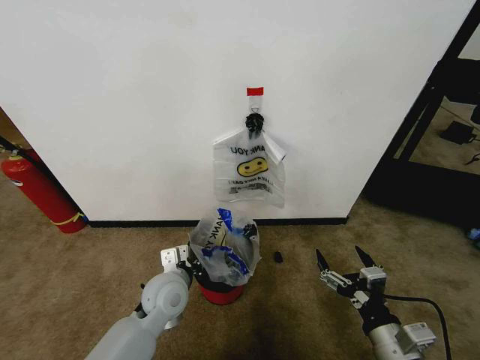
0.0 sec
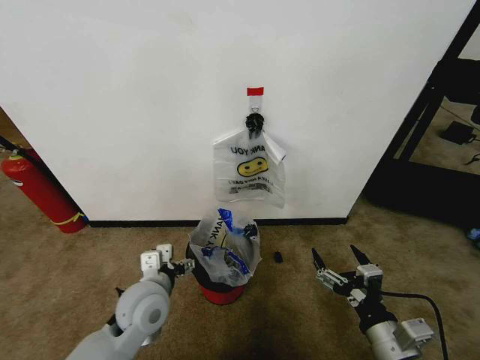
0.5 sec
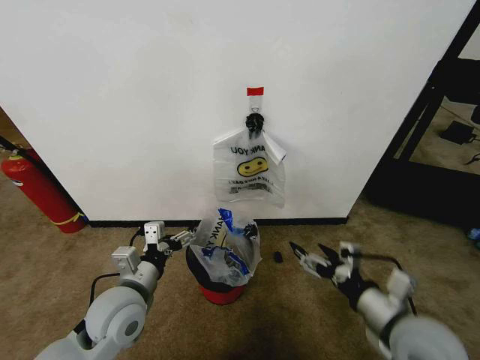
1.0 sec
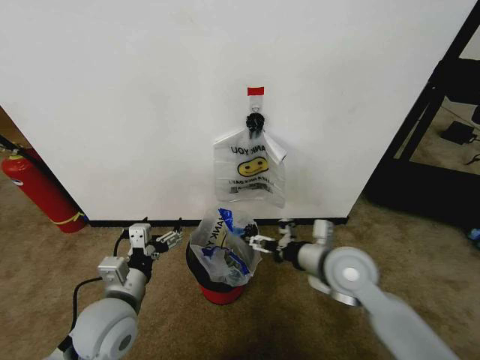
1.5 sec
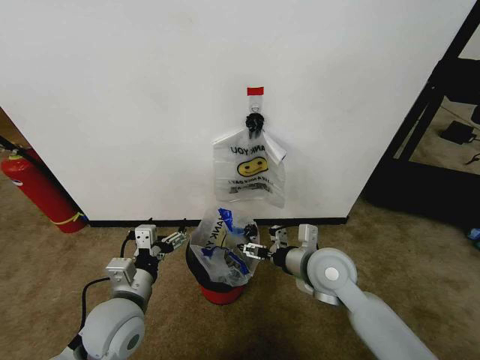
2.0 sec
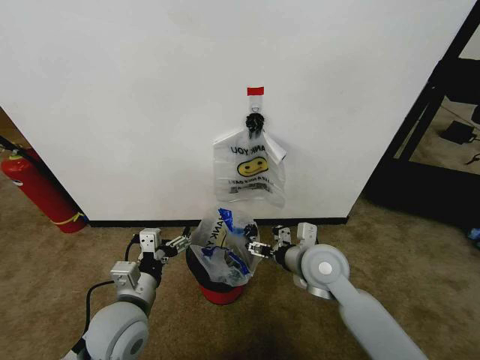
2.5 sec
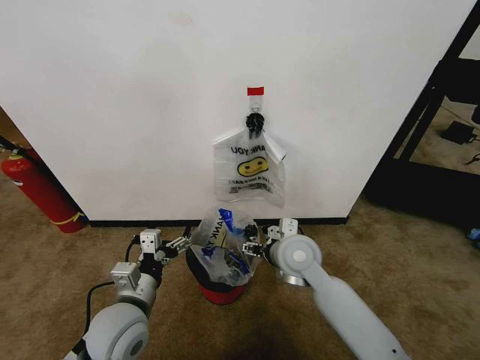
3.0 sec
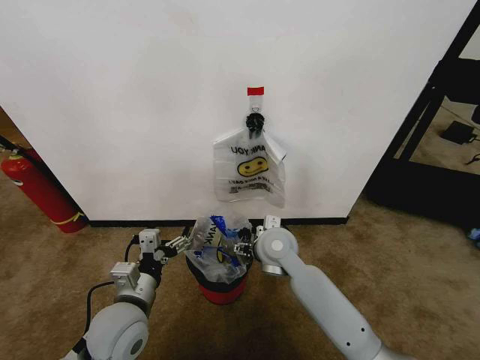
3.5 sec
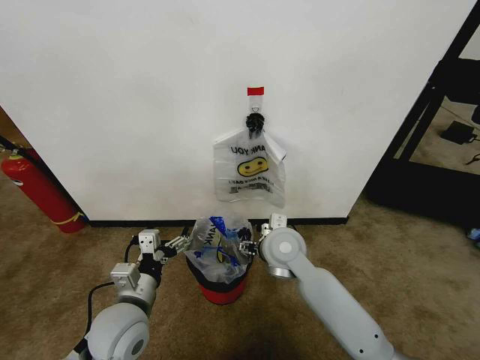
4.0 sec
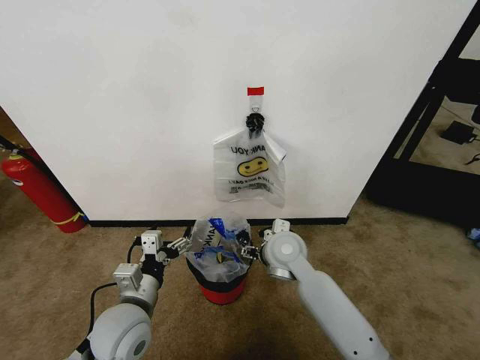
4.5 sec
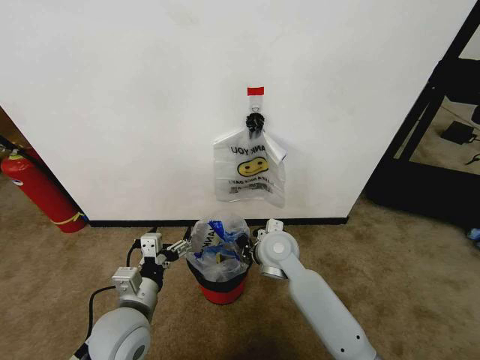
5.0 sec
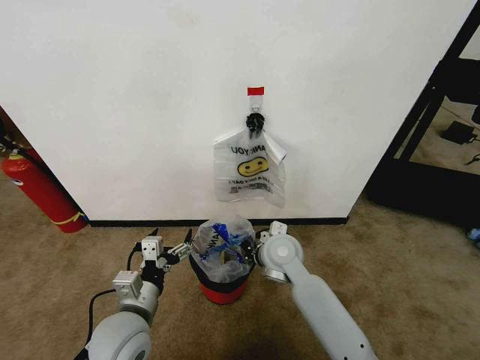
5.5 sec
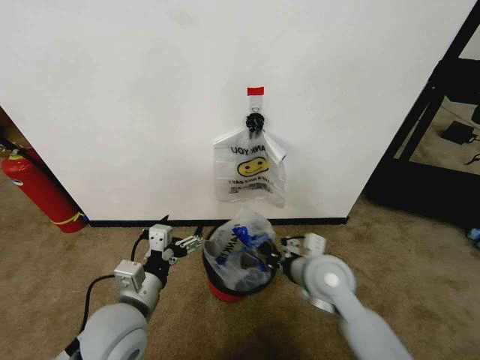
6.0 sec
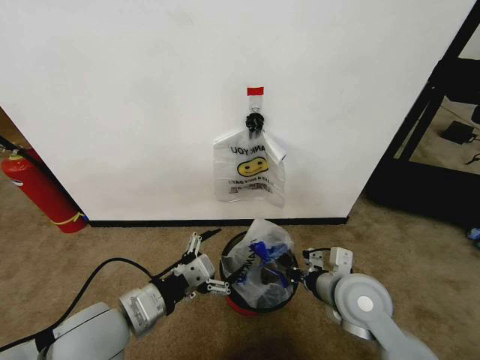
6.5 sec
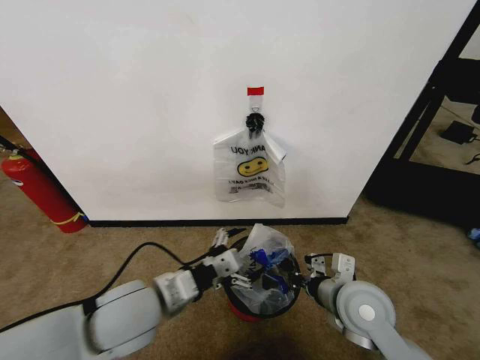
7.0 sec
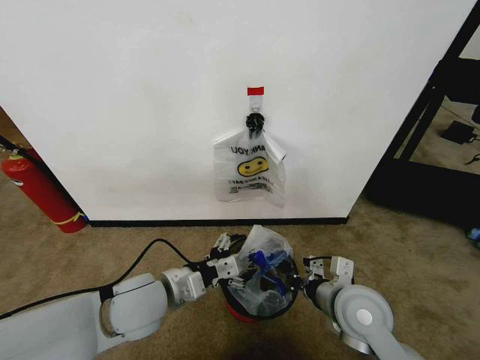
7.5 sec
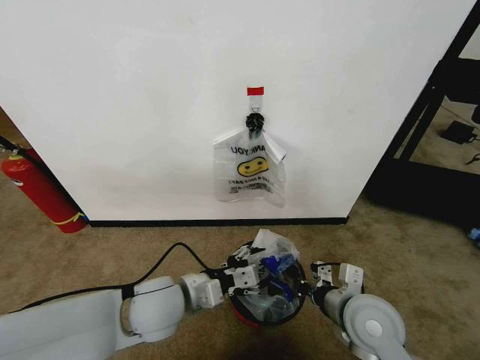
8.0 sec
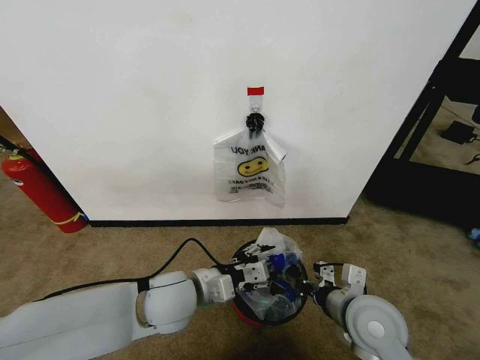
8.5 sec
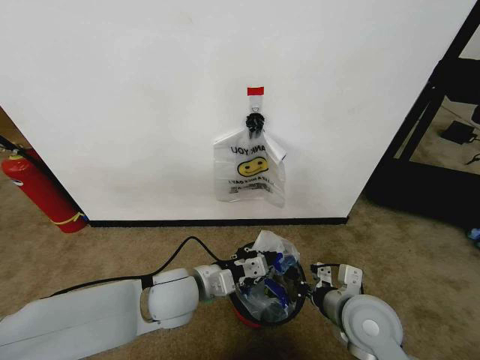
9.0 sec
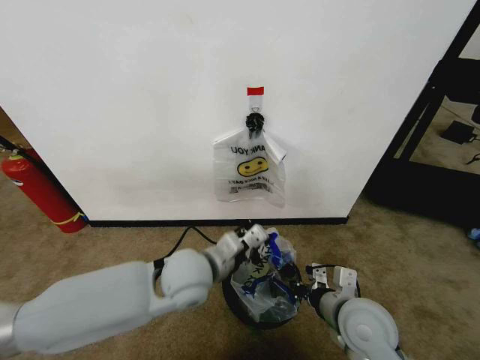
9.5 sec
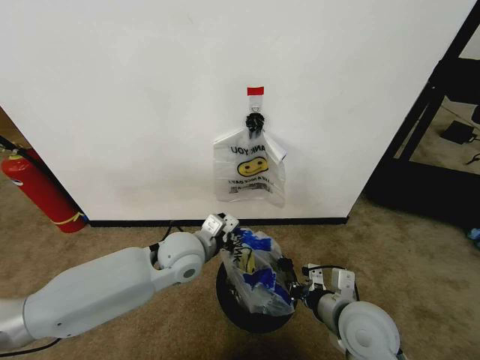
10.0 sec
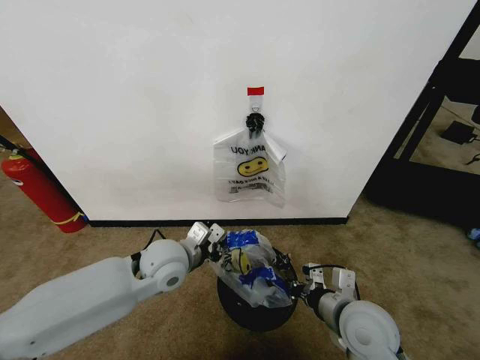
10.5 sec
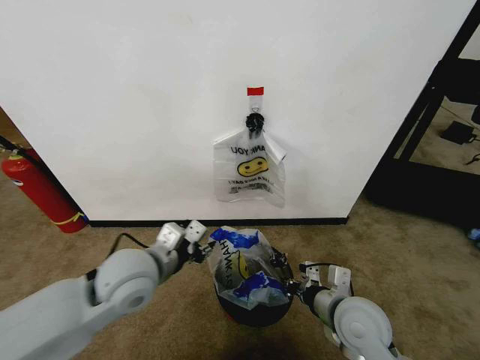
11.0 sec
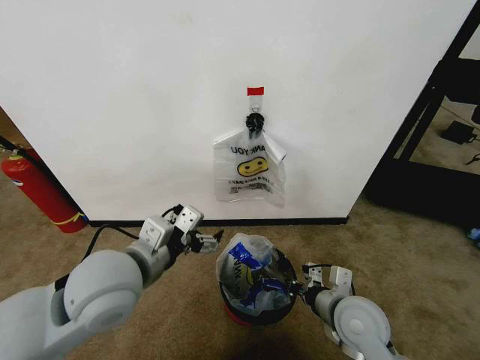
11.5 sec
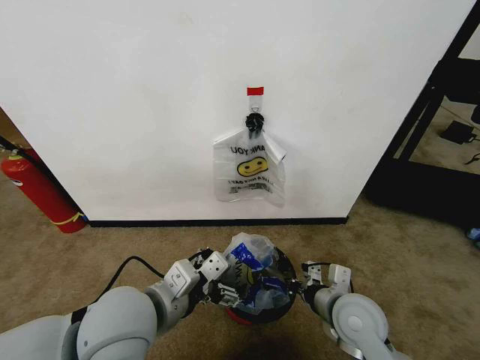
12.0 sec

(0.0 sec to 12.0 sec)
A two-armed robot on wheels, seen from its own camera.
Task of the whole recording: Pick up the garbage bag from the wall and place it over the trash bin.
0.0 sec - 2.0 sec: The left gripper shifts some 10 cm backward and to the left, and opens up; the right gripper goes some 20 cm forward and to the left.
2.0 sec - 4.0 sec: The right gripper goes some 10 cm to the left.
4.0 sec - 6.0 sec: The right gripper shifts about 10 cm to the right and backward, and closes its fingers.
6.0 sec - 8.0 sec: The left gripper shifts roughly 5 cm to the right. The right gripper moves backward, about 5 cm.
8.0 sec - 10.0 sec: The left gripper shifts approximately 10 cm forward, and closes.
10.0 sec - 12.0 sec: The left gripper goes roughly 15 cm backward and upward, and opens up.

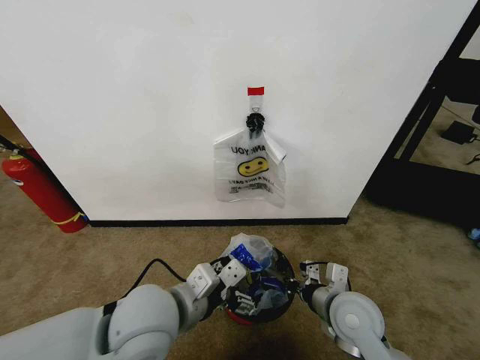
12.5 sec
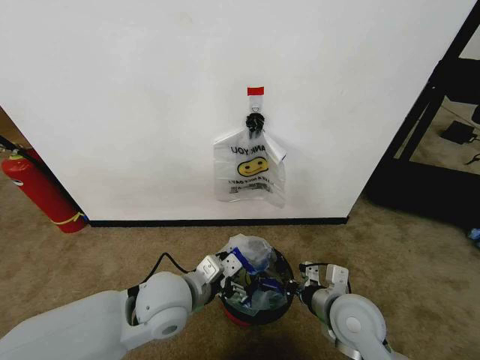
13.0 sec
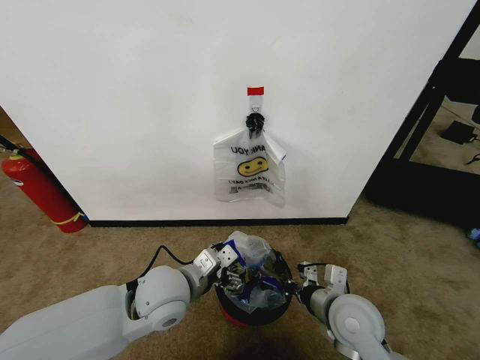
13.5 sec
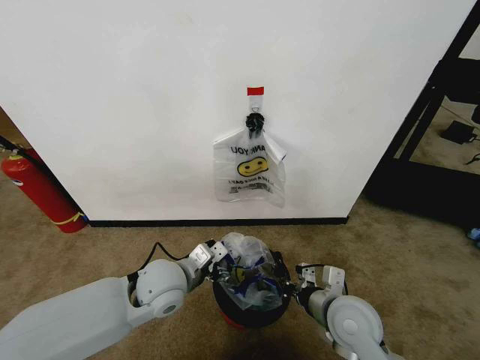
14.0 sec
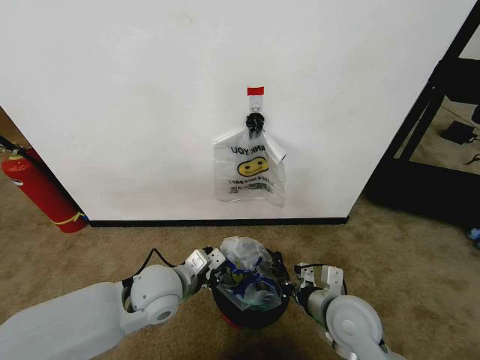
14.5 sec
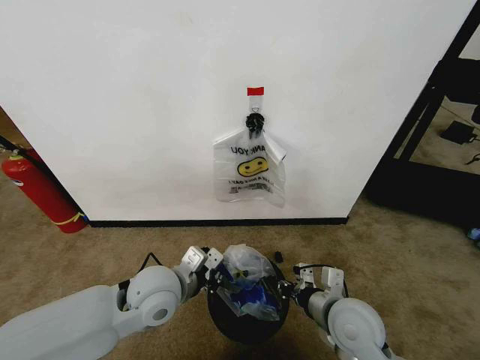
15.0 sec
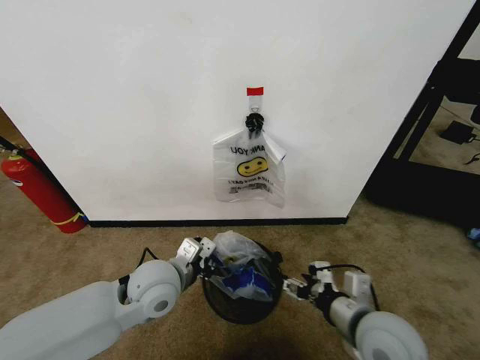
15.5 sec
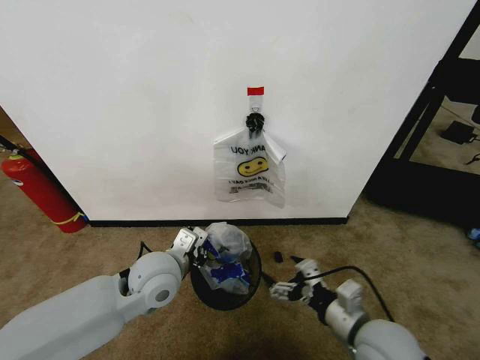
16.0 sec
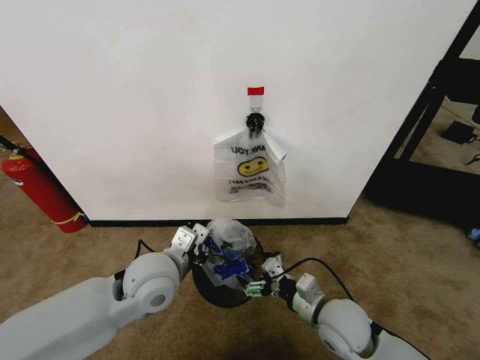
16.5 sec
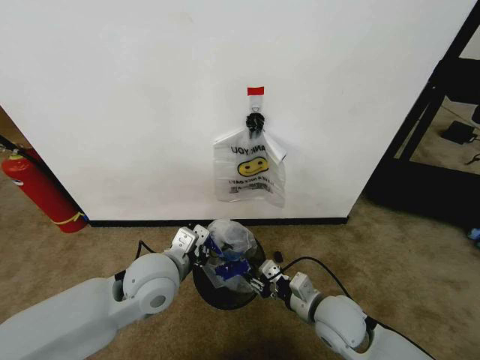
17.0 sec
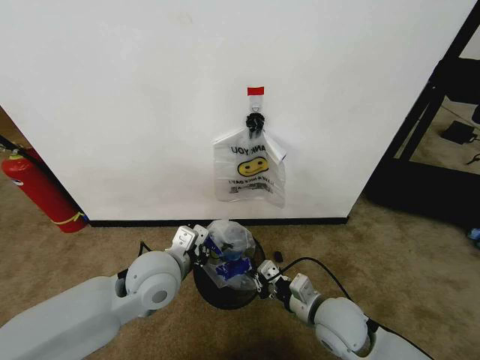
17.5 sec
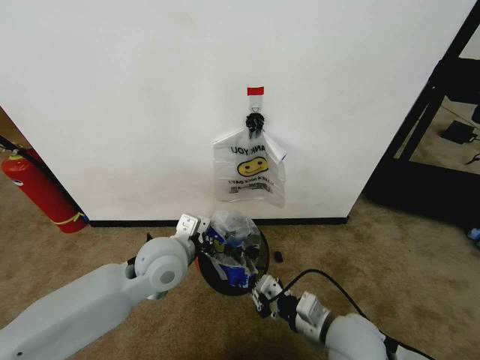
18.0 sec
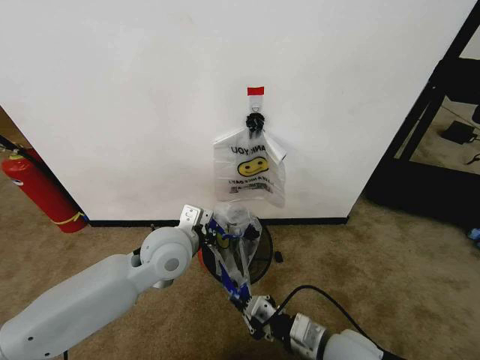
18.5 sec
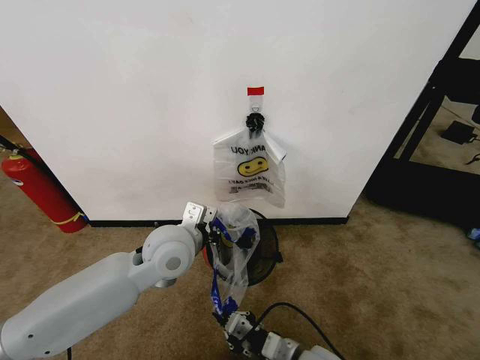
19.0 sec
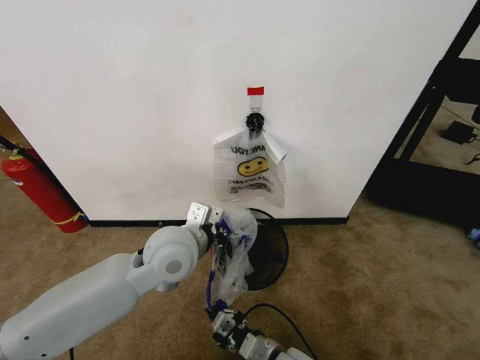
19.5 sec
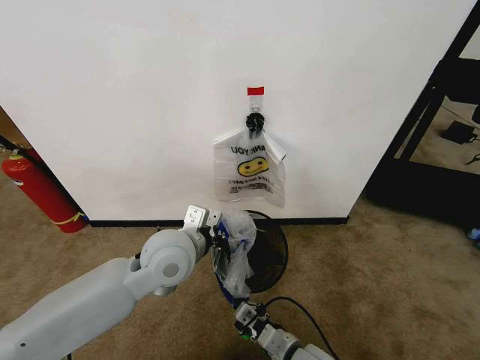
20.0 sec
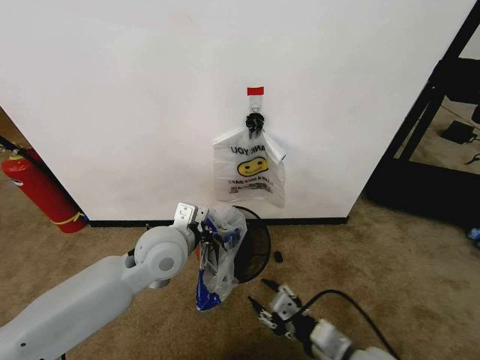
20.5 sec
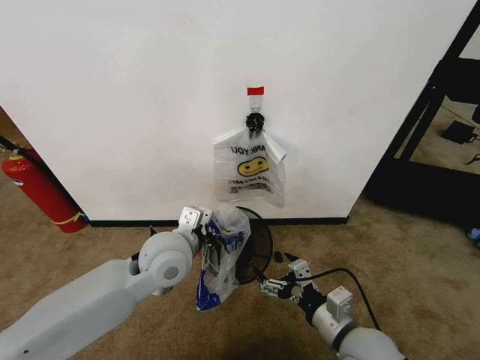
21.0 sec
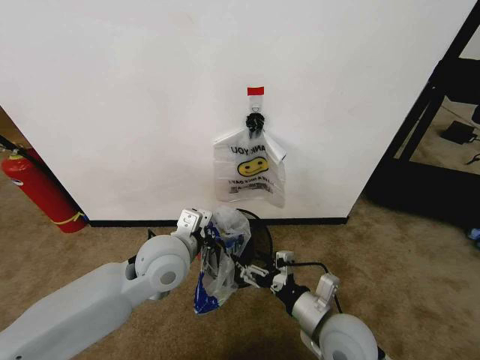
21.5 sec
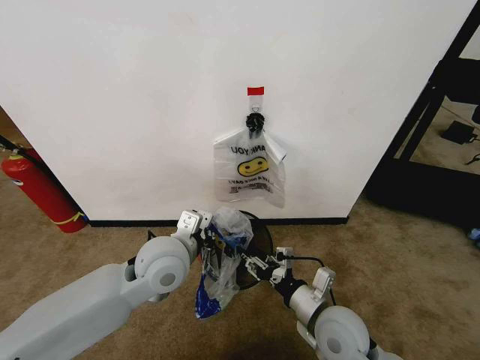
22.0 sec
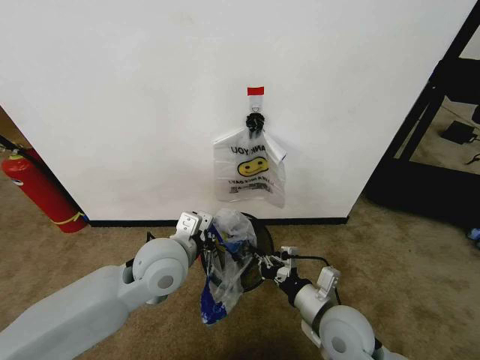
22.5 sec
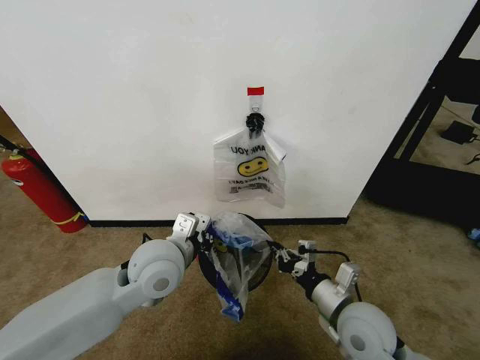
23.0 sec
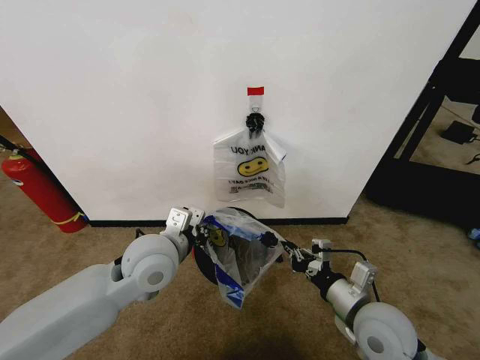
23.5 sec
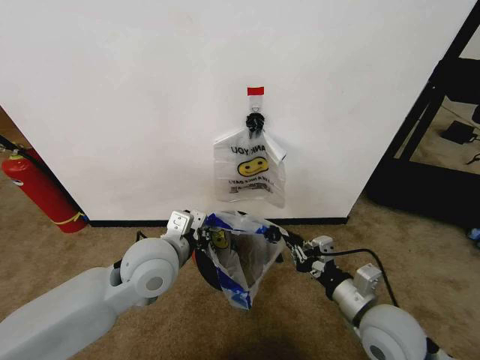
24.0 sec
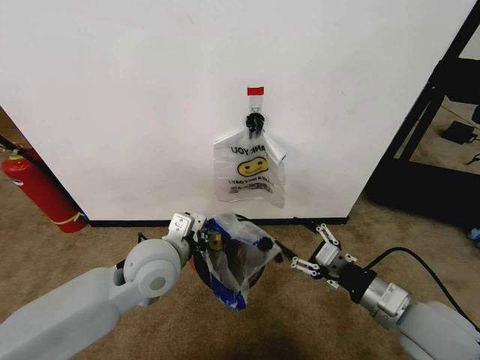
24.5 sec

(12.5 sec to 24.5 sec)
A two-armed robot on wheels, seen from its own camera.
Task of the whole recording: Pick up the garbage bag from the wall and place it over the trash bin.
12.5 sec - 14.5 sec: The left gripper heads downward and forward, covering some 10 cm, and closes its fingers.
14.5 sec - 16.5 sec: The right gripper opens up.
16.5 sec - 18.5 sec: The right gripper travels backward by approximately 5 cm, and closes; the left gripper changes place by roughly 5 cm.
18.5 sec - 20.5 sec: The right gripper moves approximately 10 cm to the left and comes back, and opens up.
20.5 sec - 22.5 sec: The right gripper travels forward by roughly 10 cm, and closes.
22.5 sec - 24.5 sec: The right gripper is displaced to the right and upward by some 15 cm, and opens.

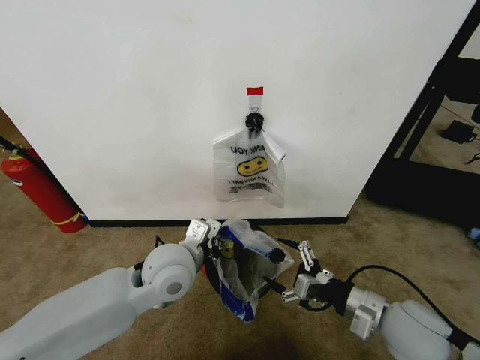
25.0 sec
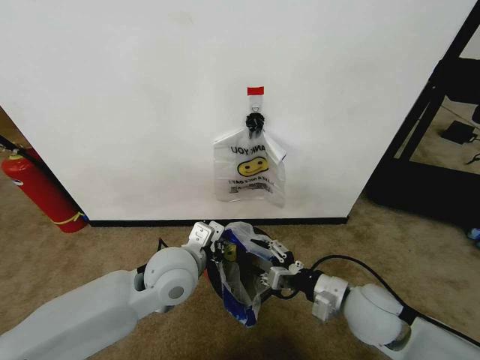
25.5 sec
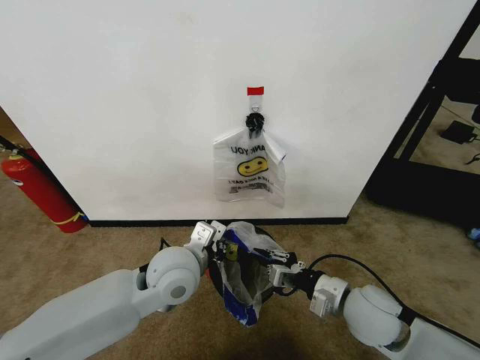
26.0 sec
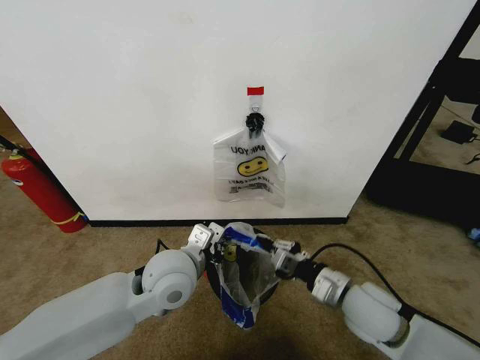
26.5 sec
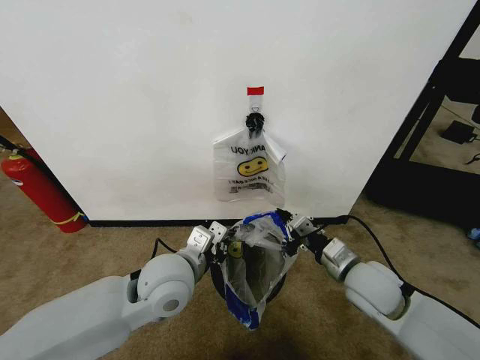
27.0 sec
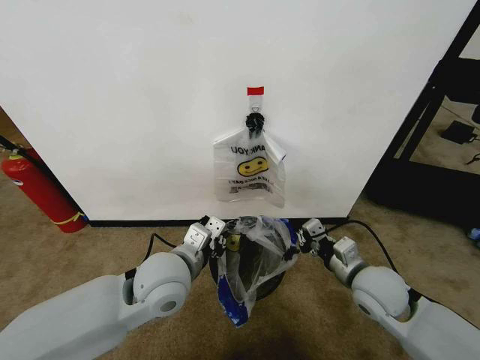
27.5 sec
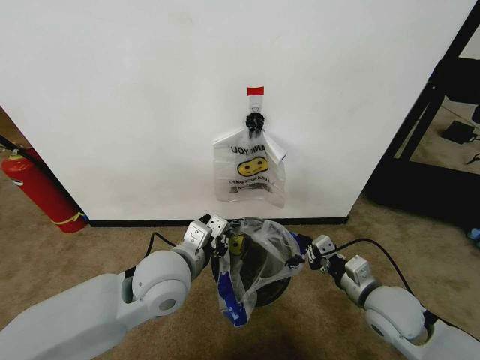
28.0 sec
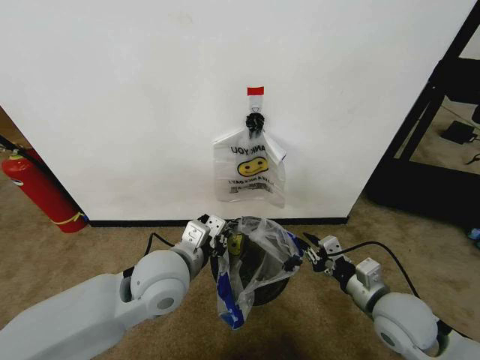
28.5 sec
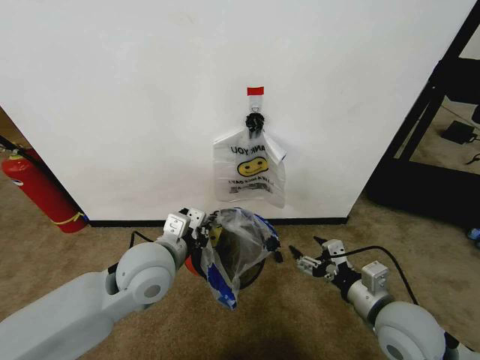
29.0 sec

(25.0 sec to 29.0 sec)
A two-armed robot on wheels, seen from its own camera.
Task of the whole recording: Pick up the garbage bag from the wall and place it over the trash bin.
25.0 sec - 27.0 sec: The right gripper shifts roughly 10 cm forward, and closes up.
27.0 sec - 29.0 sec: The right gripper is displaced backward by roughly 10 cm, and opens.
